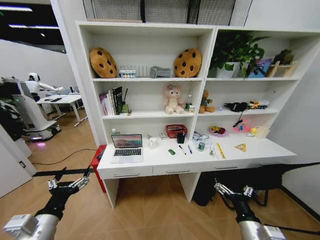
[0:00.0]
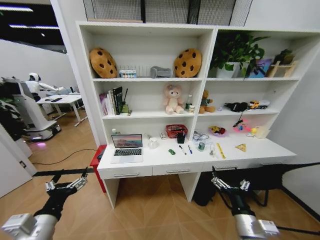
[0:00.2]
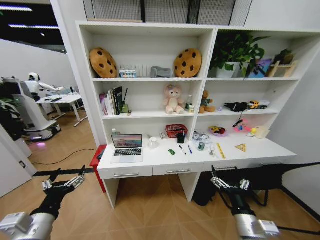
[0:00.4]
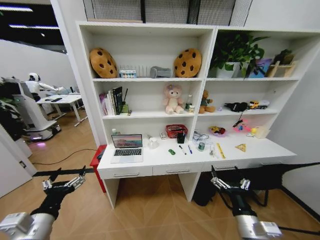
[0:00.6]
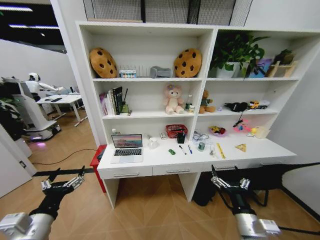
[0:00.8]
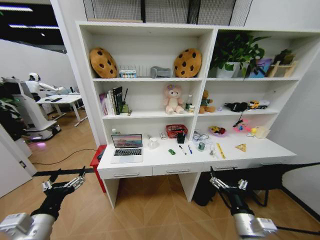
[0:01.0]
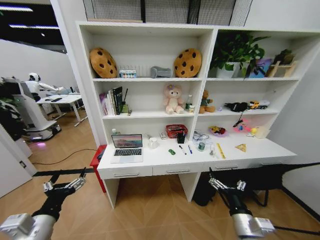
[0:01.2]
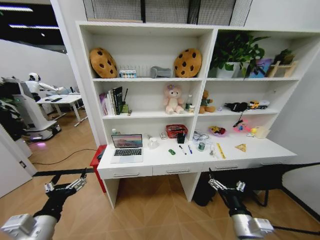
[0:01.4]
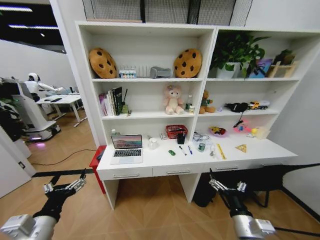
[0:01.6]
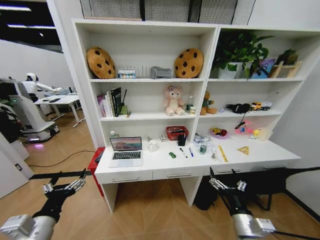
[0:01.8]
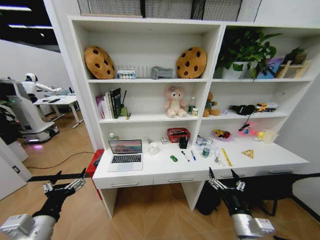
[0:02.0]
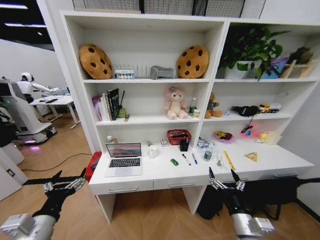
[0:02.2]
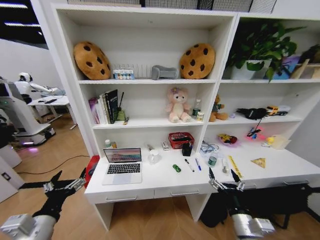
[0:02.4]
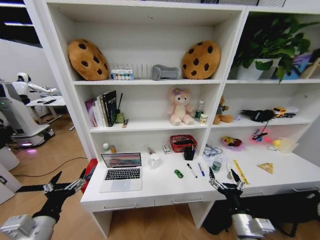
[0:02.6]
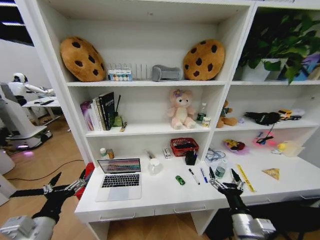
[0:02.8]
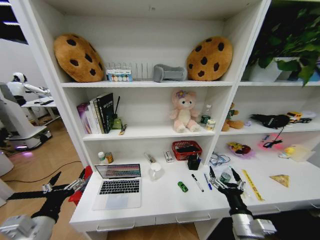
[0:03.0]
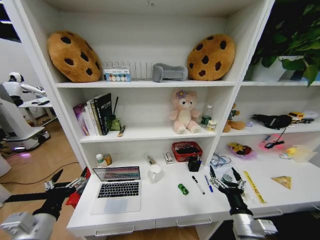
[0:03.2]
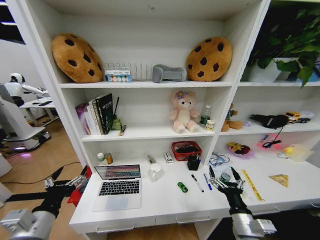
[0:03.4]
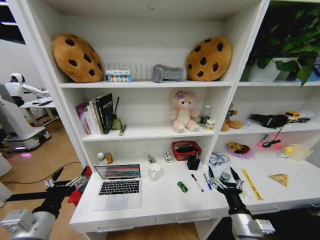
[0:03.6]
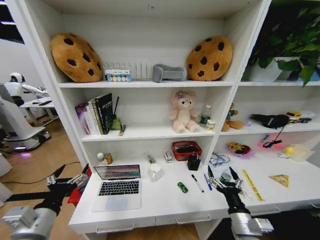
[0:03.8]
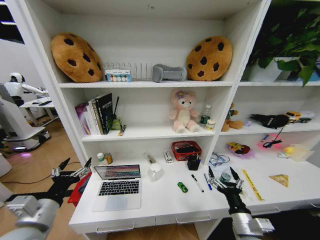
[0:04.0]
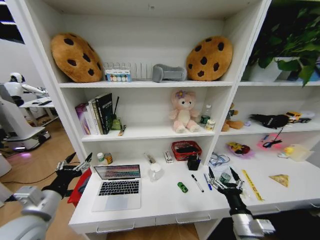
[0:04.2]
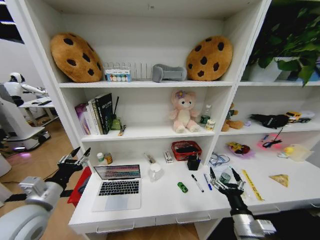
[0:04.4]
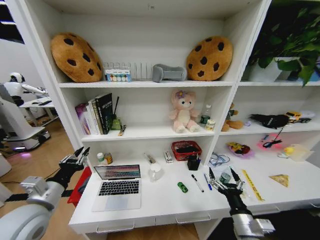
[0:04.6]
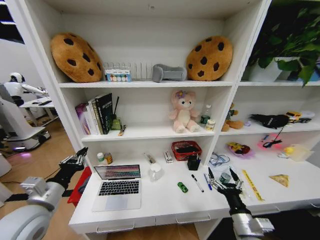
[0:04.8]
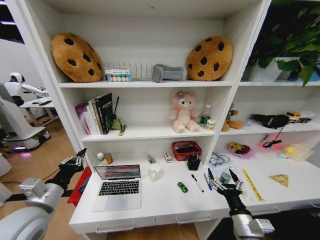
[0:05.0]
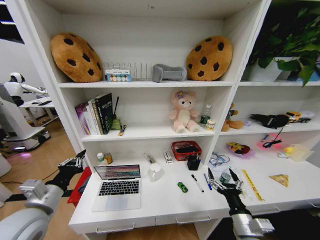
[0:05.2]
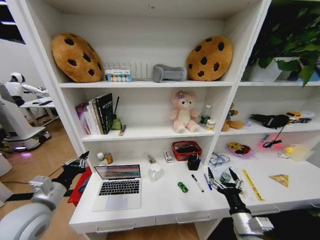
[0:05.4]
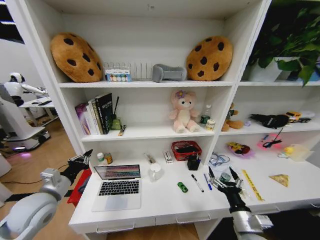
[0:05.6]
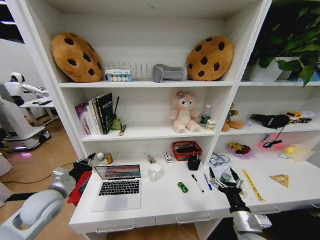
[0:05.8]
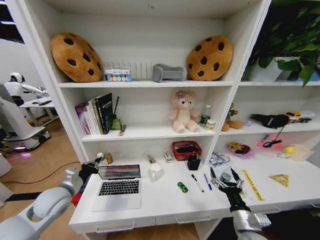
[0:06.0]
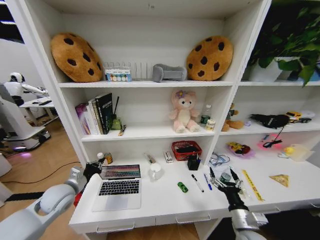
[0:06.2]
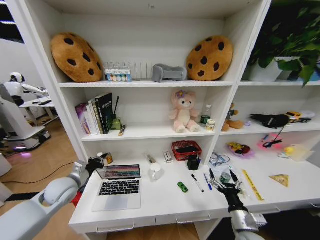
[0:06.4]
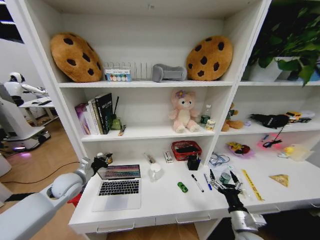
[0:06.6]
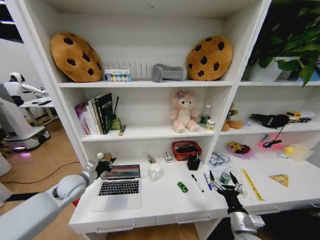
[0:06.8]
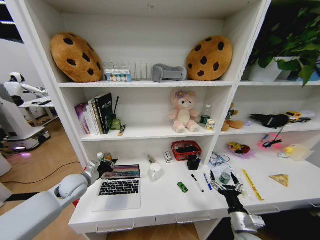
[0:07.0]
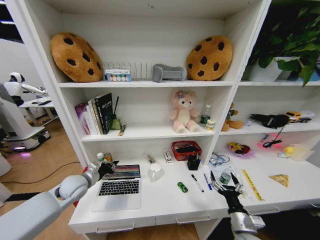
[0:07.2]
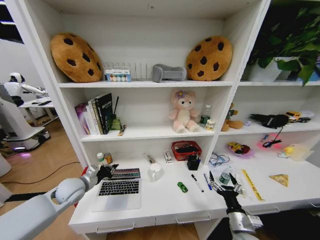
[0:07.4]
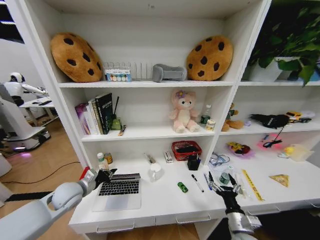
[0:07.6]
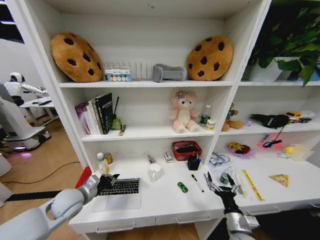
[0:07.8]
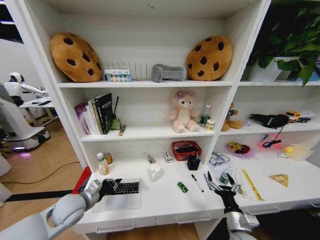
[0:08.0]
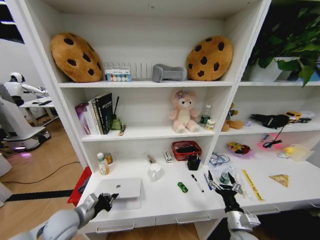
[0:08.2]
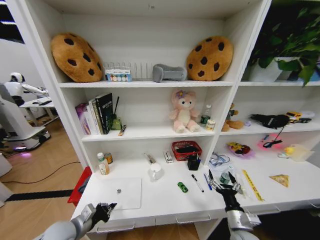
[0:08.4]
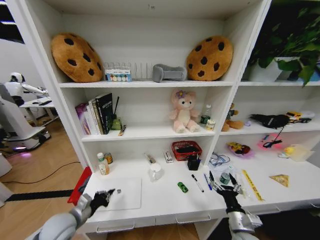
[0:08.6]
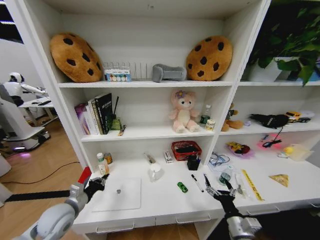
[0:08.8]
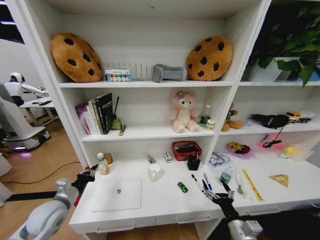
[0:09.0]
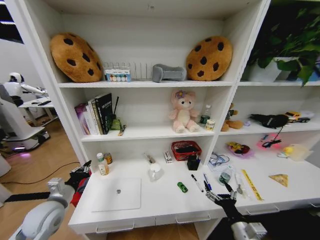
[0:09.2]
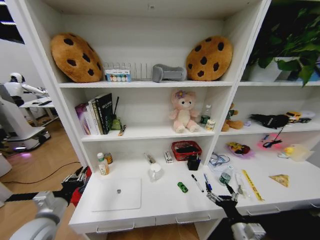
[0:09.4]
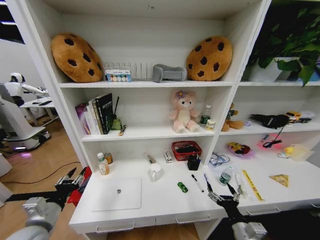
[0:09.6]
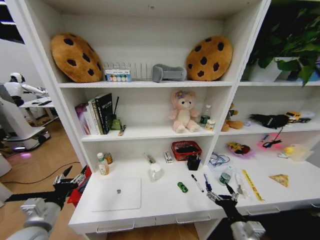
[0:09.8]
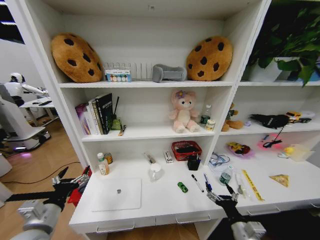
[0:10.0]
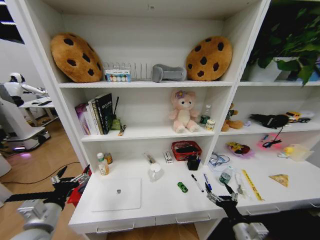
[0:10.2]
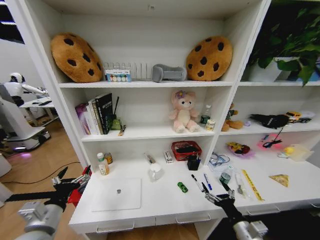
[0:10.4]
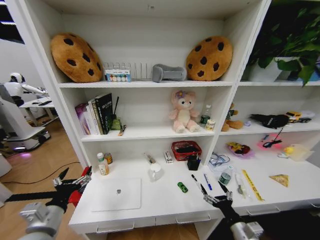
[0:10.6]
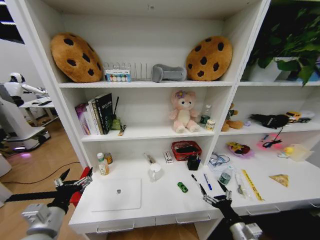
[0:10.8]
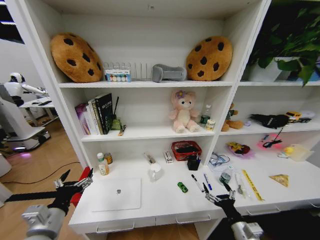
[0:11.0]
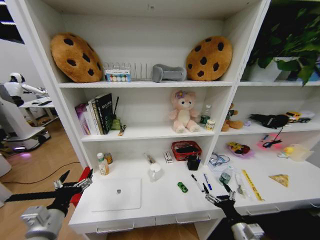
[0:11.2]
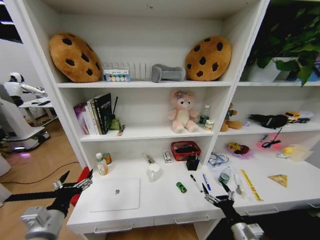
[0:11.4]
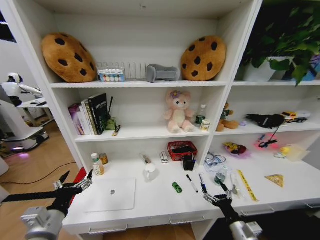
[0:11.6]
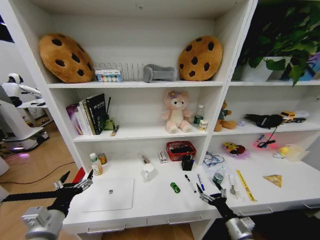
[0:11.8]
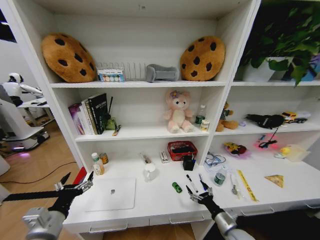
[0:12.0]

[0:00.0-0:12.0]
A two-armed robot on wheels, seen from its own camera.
Task of the whole recording: Organize the objects on the table.
0:03.0 to 0:04.4: The left gripper heads forward, covering roughly 10 cm, and closes its fingers.
0:04.4 to 0:06.0: The left gripper shifts roughly 10 cm forward and downward, and closes.
0:07.6 to 0:09.0: The left gripper shifts approximately 5 cm backward.
0:09.0 to 0:10.4: The left gripper moves backward, roughly 10 cm, and opens up.
0:10.4 to 0:12.0: The right gripper travels downward by approximately 5 cm.

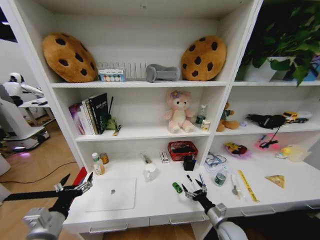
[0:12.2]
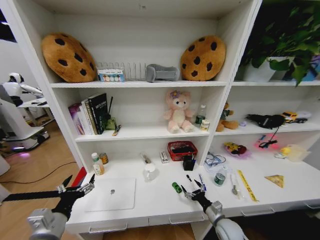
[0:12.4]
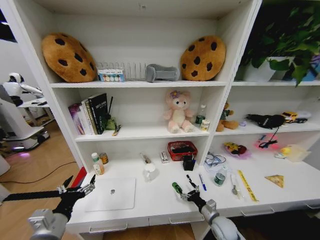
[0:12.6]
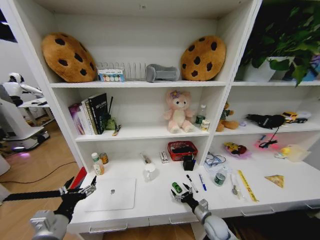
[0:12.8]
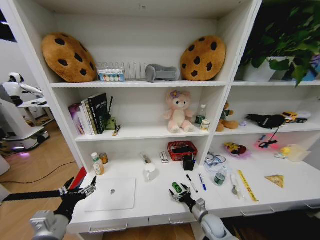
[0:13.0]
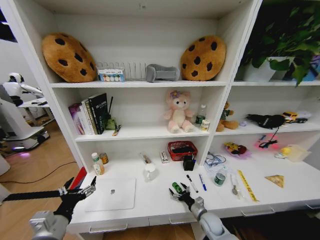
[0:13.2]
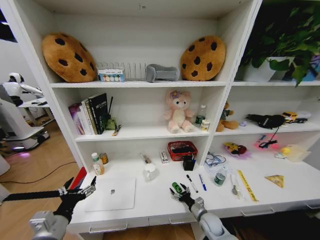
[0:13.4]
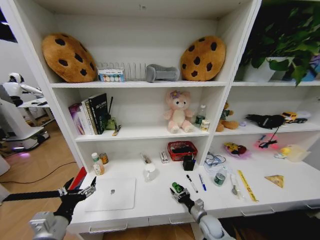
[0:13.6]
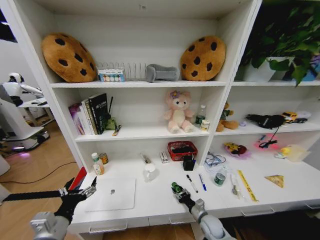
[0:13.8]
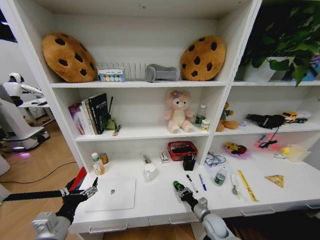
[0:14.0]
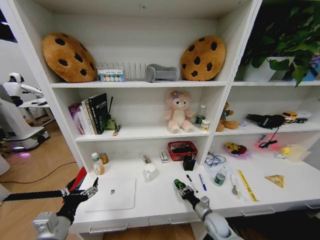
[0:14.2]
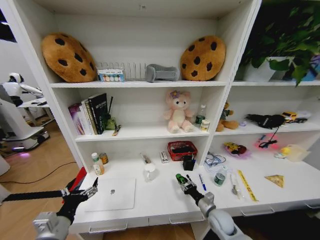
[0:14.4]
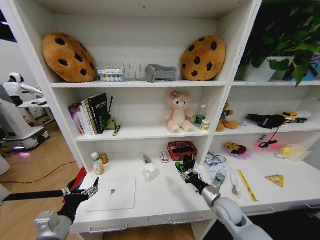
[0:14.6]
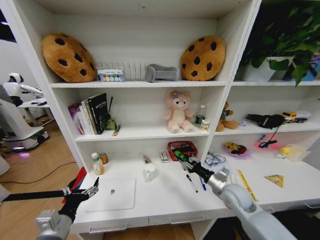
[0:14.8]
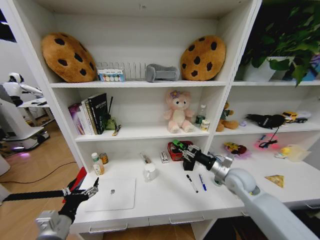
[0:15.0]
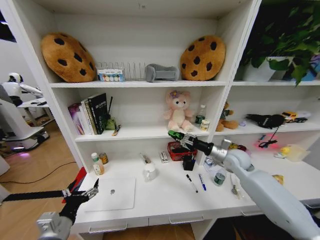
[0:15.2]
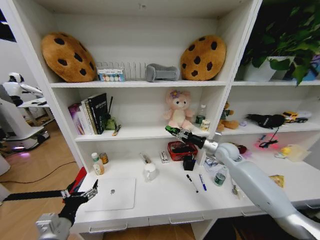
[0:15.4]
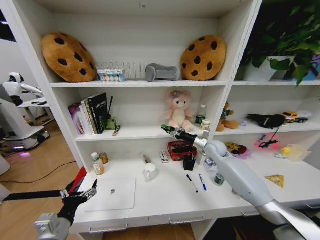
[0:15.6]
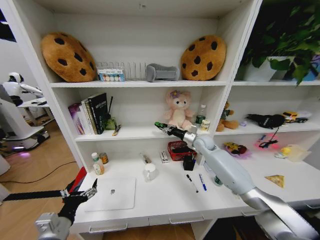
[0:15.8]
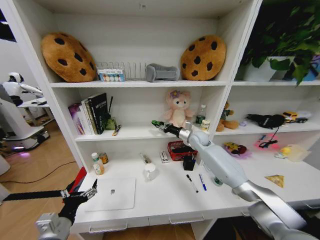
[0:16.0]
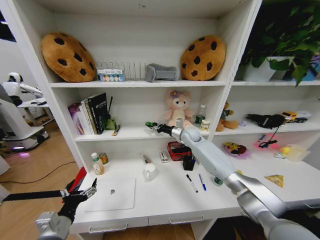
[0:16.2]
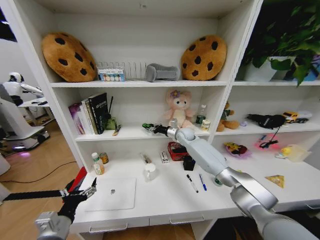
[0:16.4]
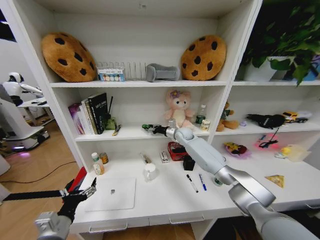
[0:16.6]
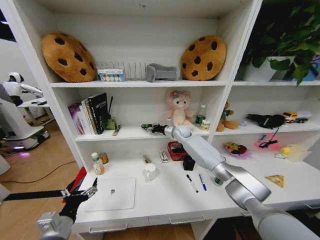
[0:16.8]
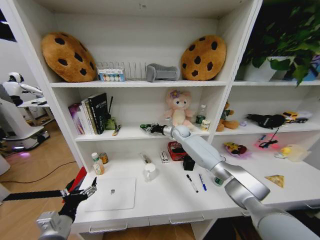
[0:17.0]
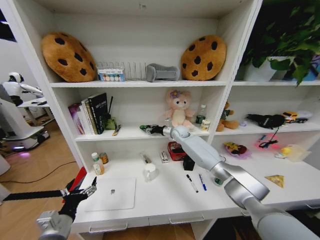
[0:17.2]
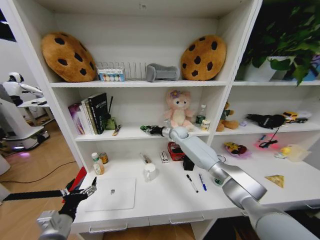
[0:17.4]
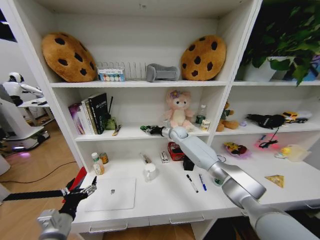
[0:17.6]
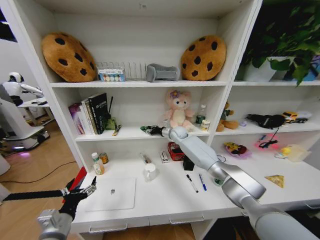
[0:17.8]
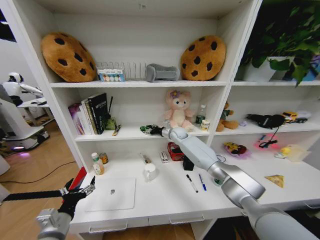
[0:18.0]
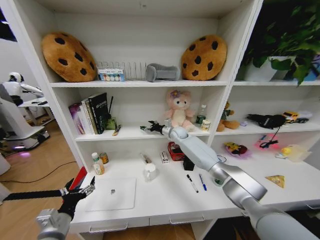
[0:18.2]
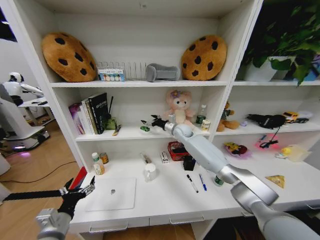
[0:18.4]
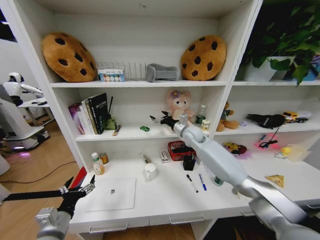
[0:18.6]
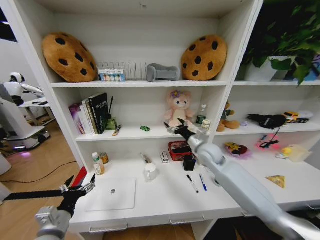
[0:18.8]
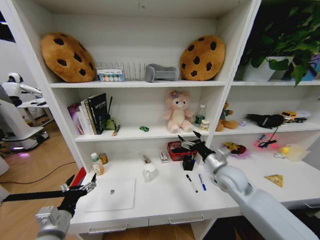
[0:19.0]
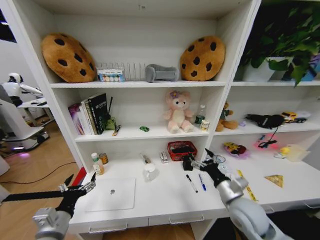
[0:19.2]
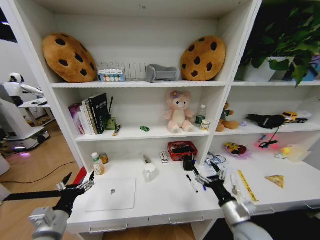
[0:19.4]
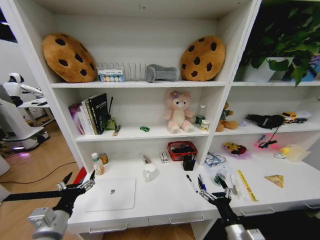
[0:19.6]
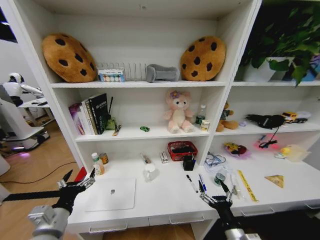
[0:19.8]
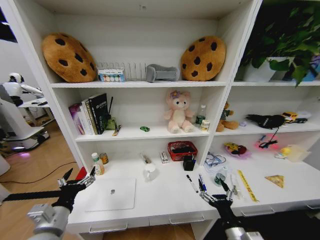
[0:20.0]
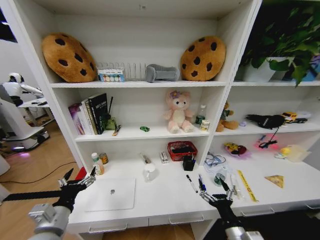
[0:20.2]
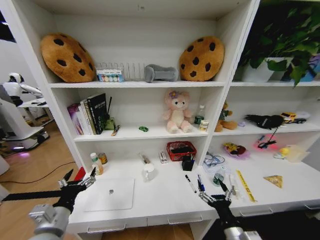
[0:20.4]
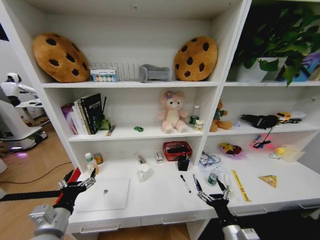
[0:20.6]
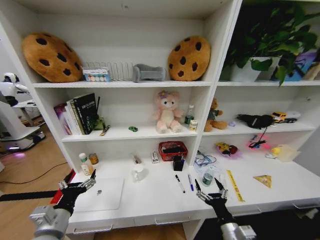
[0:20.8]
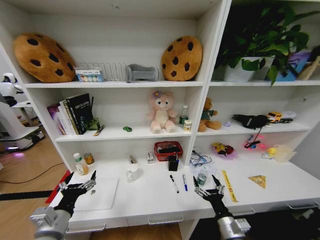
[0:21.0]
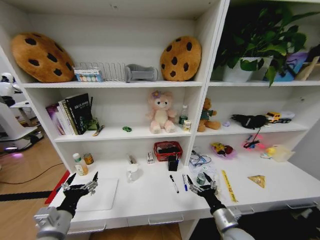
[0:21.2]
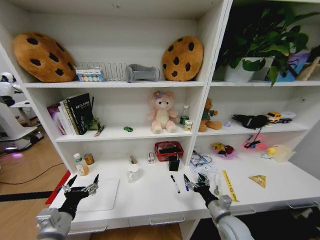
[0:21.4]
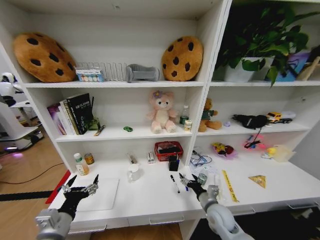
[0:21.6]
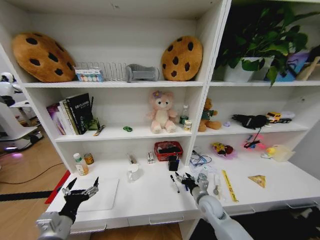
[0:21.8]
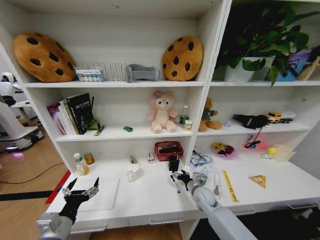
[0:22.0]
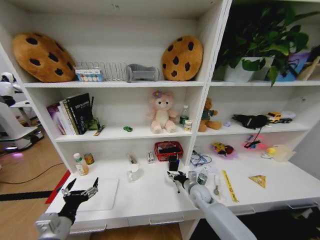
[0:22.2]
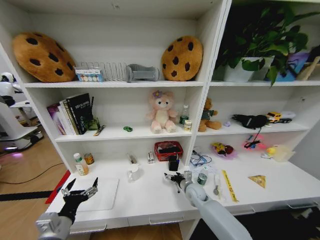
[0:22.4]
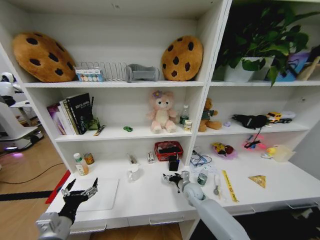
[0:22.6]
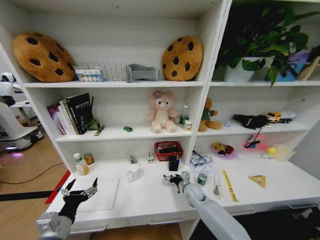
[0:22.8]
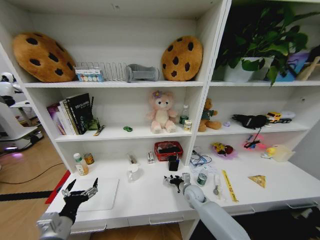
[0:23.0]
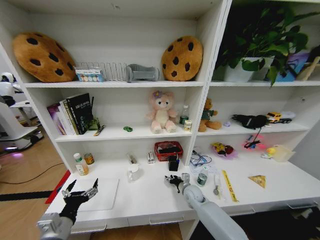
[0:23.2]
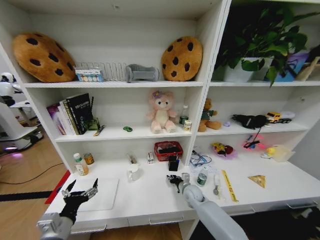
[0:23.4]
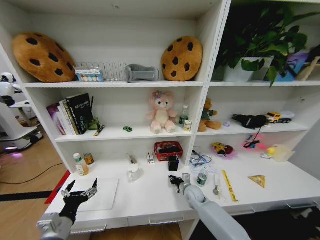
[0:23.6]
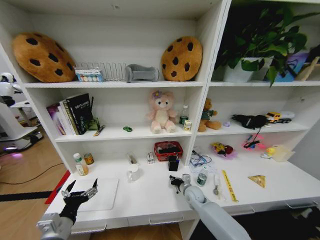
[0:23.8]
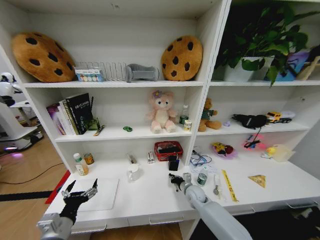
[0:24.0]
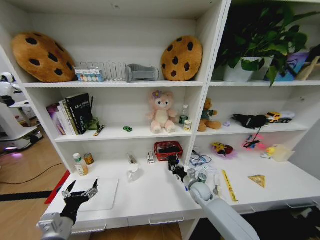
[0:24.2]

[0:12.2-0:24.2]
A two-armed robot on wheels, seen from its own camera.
Task of the whole recording: Organize the objects on the table.
0:12.2 to 0:13.8: The right gripper travels downward and forward by approximately 10 cm, and closes.
0:13.8 to 0:15.2: The right gripper moves upward and forward, some 35 cm.
0:15.2 to 0:16.6: The right gripper heads forward and to the left, covering about 25 cm.
0:16.6 to 0:18.2: The right gripper opens.
0:18.2 to 0:19.8: The right gripper travels backward by roughly 50 cm.
0:19.8 to 0:21.2: The right gripper shifts some 5 cm forward.
0:21.2 to 0:22.6: The right gripper heads forward, covering approximately 20 cm.
0:22.6 to 0:24.2: The right gripper closes its fingers.
